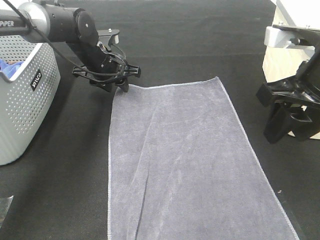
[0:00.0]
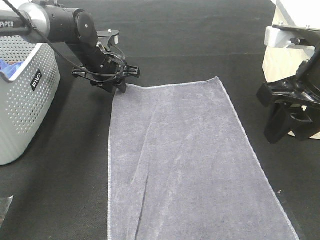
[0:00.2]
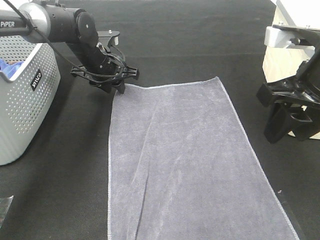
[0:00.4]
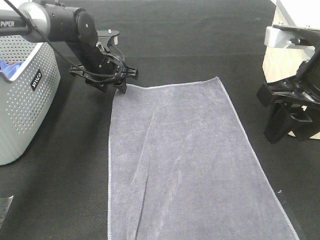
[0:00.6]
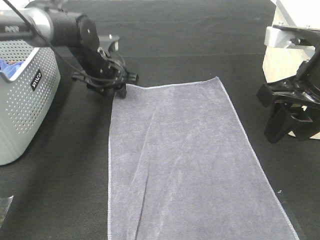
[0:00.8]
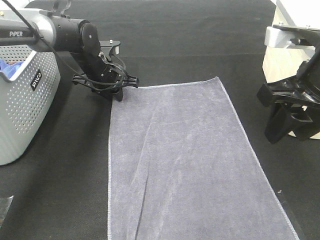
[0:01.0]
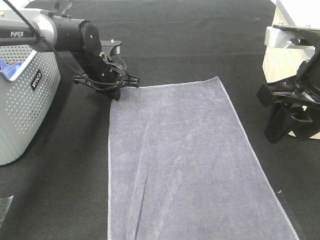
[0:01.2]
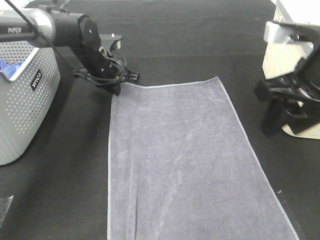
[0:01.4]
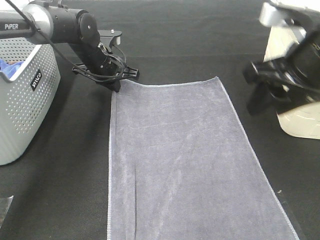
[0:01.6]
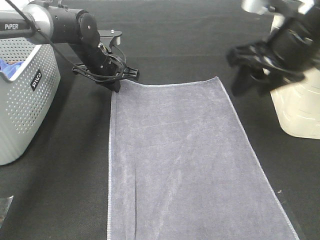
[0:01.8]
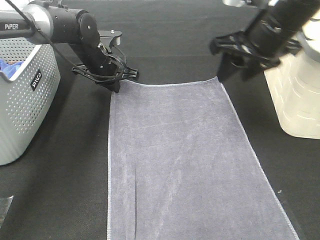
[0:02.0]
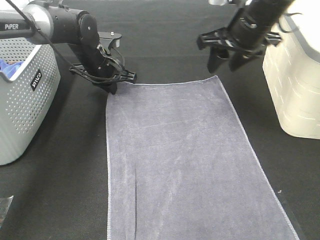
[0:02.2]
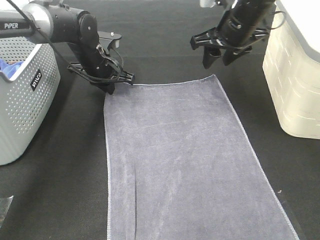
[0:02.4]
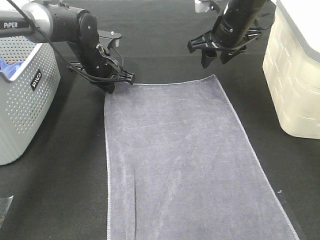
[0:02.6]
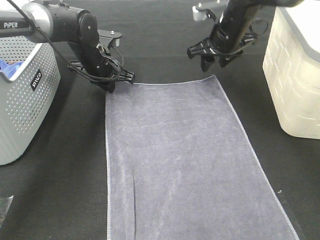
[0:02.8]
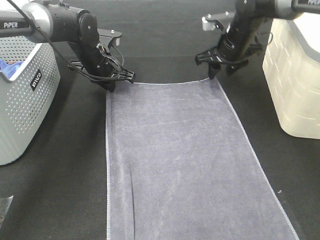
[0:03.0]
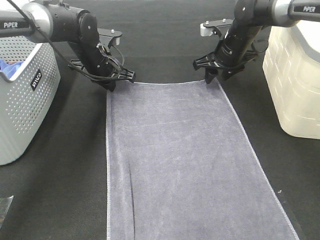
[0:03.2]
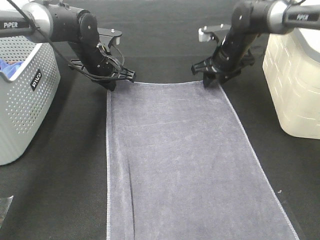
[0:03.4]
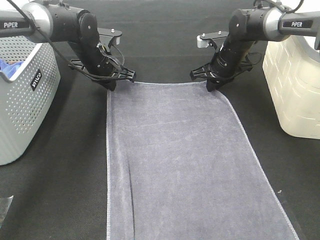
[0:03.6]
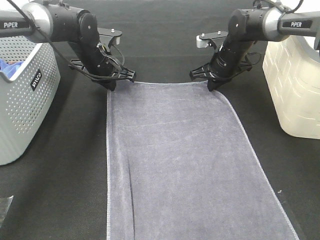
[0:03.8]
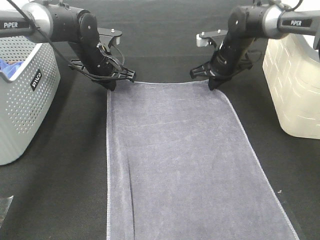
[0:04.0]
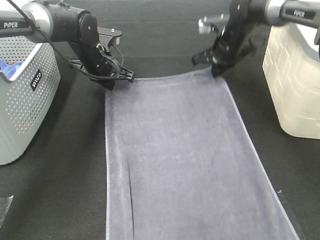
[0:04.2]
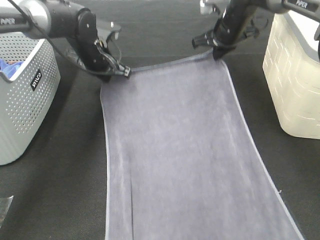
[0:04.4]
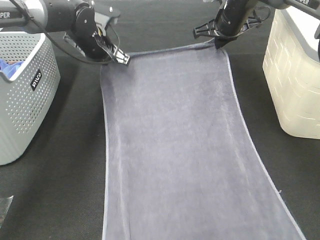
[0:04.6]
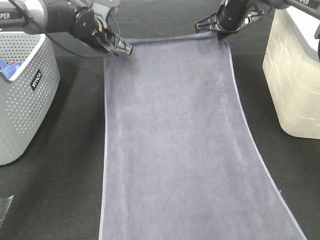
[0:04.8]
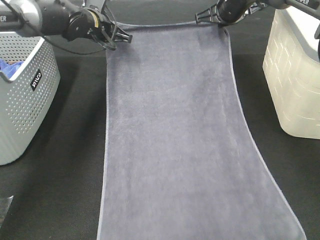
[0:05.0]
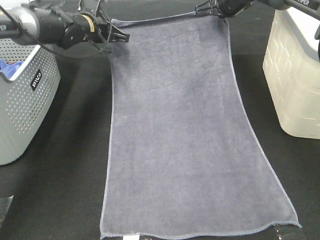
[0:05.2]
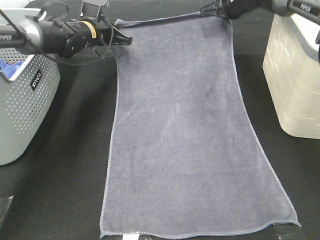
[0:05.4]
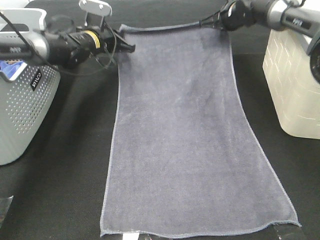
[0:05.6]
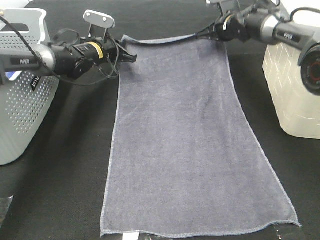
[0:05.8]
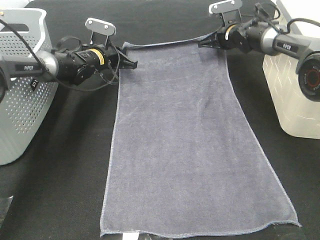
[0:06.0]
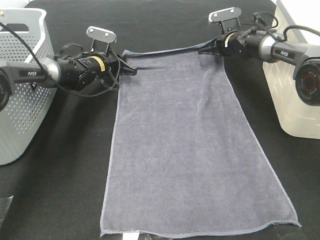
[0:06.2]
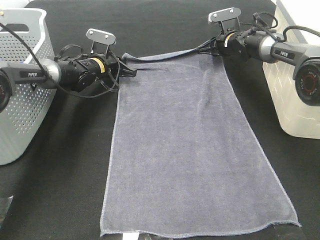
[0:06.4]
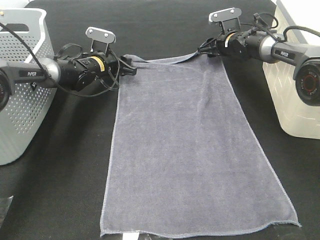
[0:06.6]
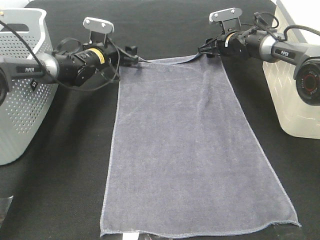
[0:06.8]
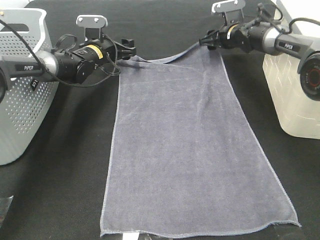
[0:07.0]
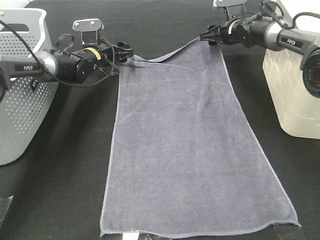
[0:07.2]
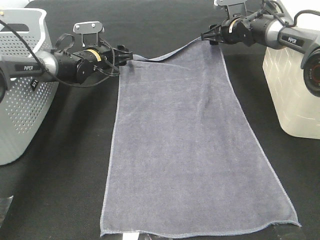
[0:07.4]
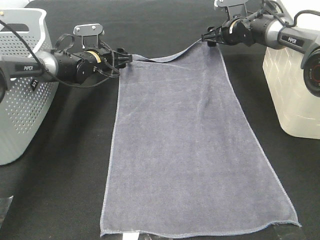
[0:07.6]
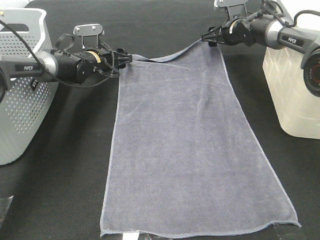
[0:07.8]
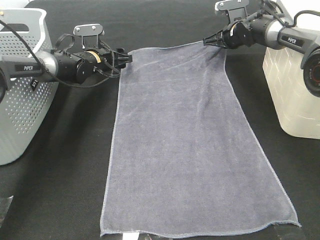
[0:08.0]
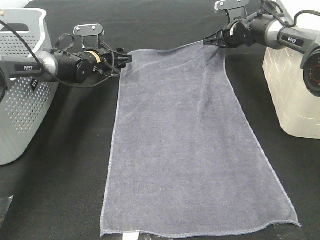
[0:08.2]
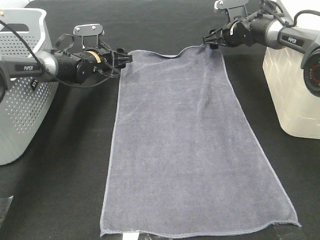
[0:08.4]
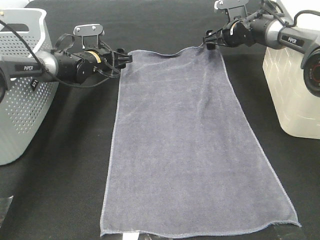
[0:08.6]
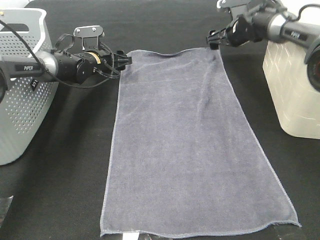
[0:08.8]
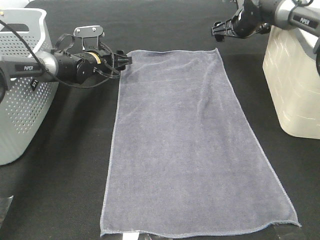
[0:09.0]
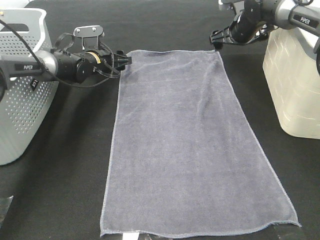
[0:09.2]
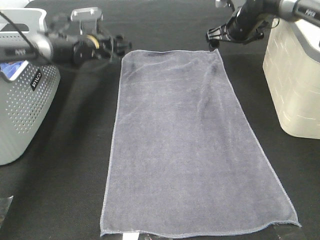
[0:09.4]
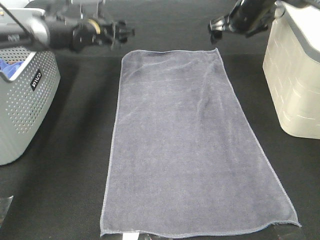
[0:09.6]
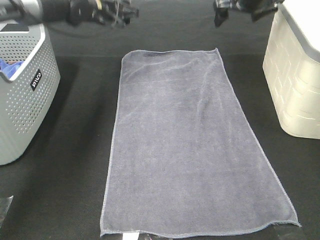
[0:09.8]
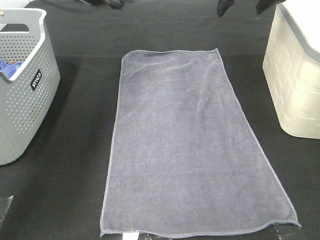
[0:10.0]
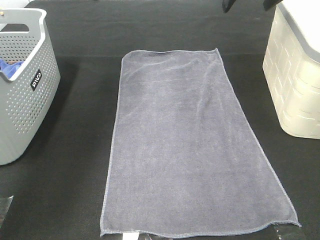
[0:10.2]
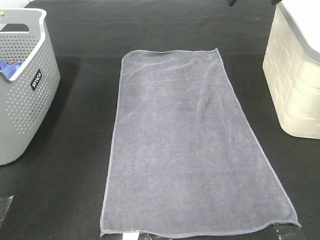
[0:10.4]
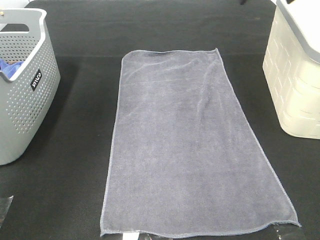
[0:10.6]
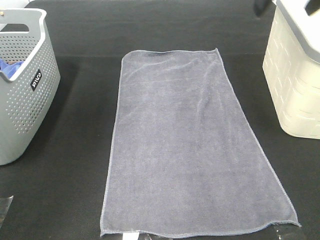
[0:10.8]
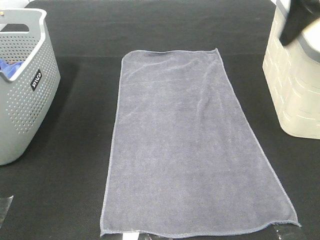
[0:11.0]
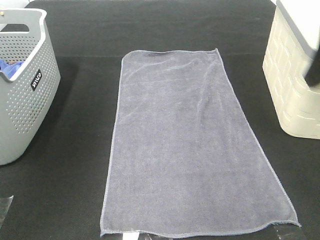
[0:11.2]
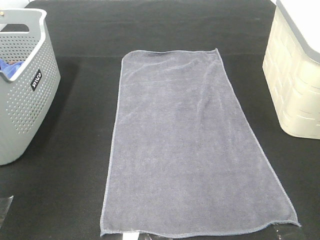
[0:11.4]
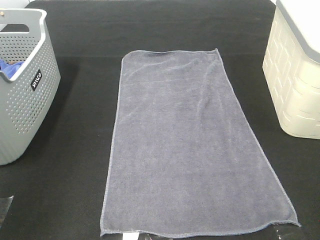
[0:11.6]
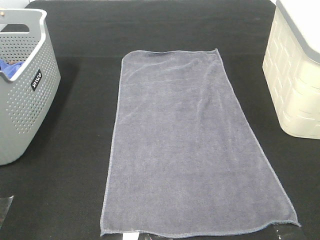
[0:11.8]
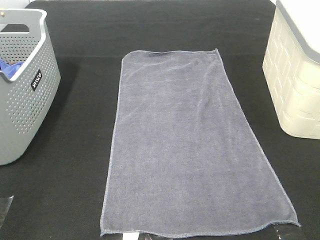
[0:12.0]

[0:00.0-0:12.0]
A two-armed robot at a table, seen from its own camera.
Task of the whole recording: Remove the towel and place it.
Step, 0:00.0 to 0:02.4: Right hand:adjust the gray towel.
0:00.0 to 0:01.6: The left gripper closes.
0:01.6 to 0:03.0: The right gripper moves forward and downward, approximately 25 cm.
0:03.0 to 0:04.4: The right gripper closes up.
0:04.4 to 0:06.0: Both grippers move downward and forward, some 10 cm.
0:06.0 to 0:07.6: The left gripper opens up. The right gripper opens up.
0:07.6 to 0:09.0: The right gripper closes and opens again.
0:09.0 to 0:10.4: The left gripper heads upward and backward, covering about 35 cm. Meanwhile the right gripper heads upward and backward, covering about 20 cm.
0:10.4 to 0:12.0: Both grippers travel together backward, about 40 cm.

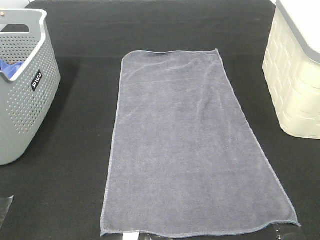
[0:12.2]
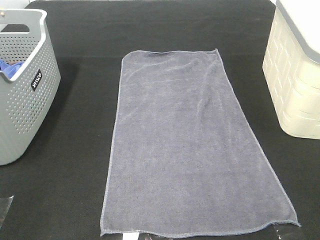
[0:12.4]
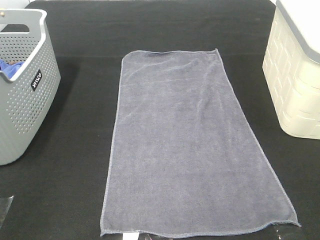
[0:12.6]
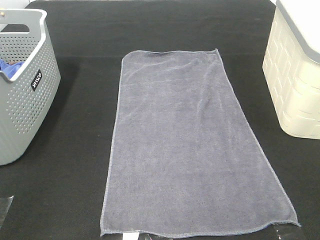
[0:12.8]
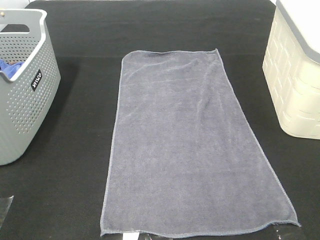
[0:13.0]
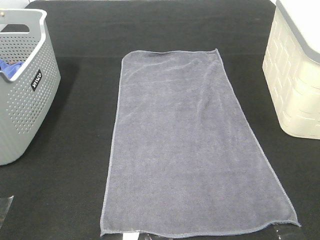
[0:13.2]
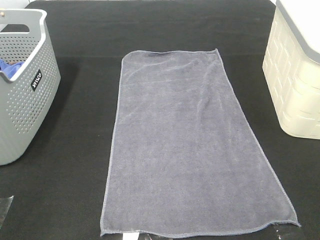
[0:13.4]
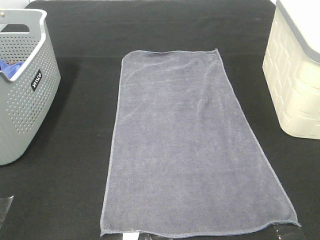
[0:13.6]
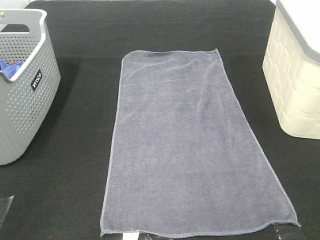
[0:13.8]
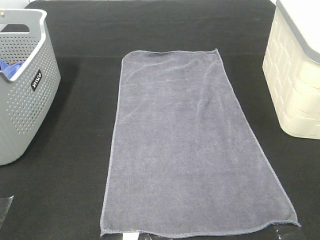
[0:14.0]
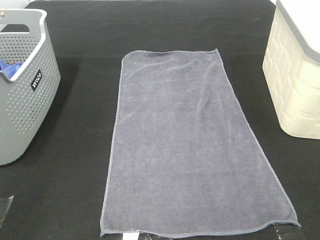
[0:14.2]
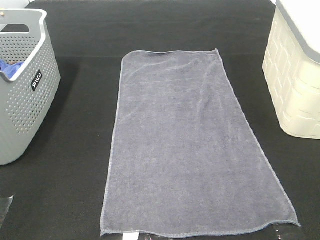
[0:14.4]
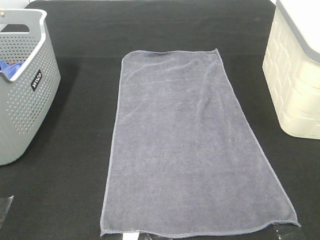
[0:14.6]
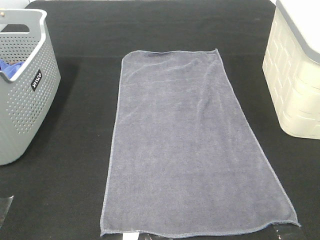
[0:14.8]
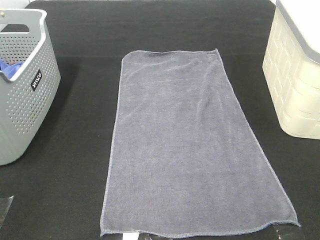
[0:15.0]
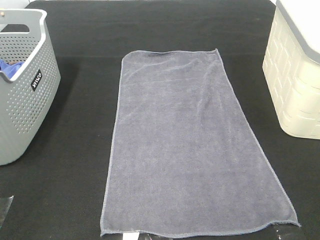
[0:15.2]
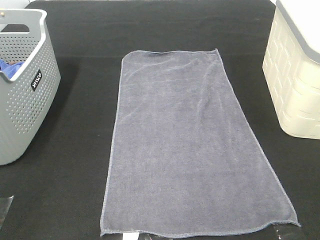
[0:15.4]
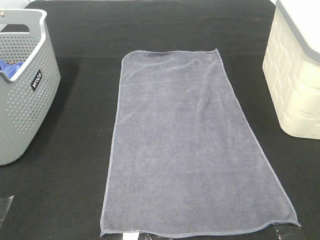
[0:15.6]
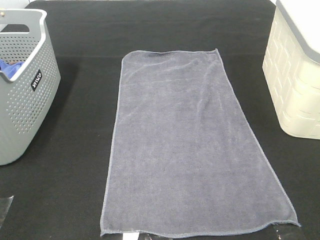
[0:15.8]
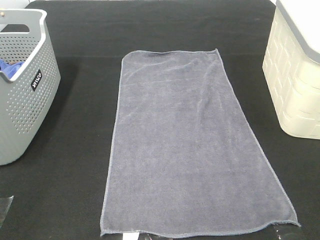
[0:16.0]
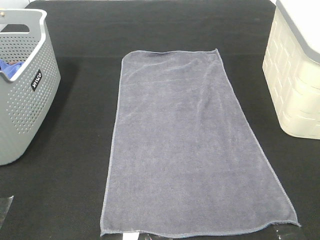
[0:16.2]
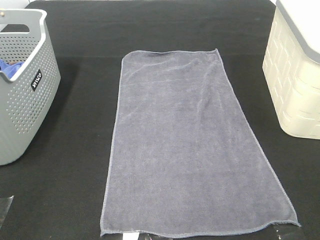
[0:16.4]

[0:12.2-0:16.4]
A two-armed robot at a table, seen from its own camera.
Task of the whole recording: Remove the towel and place it.
0:15.0 to 0:16.4: Neither gripper changes place.
